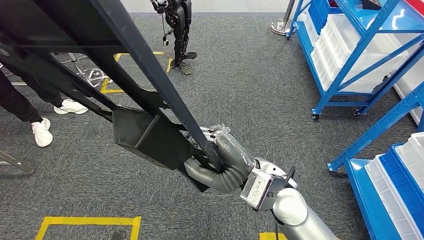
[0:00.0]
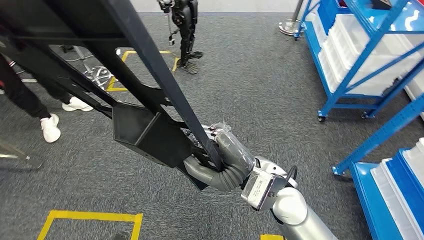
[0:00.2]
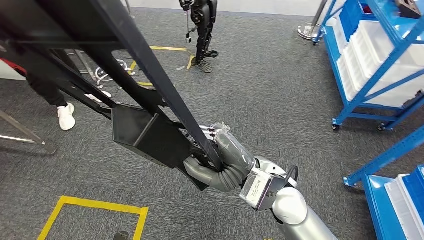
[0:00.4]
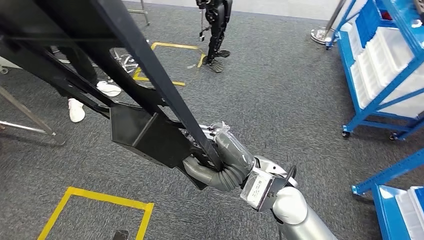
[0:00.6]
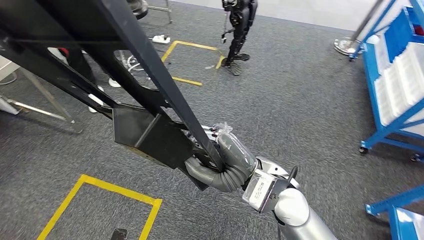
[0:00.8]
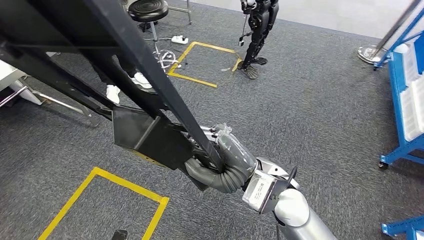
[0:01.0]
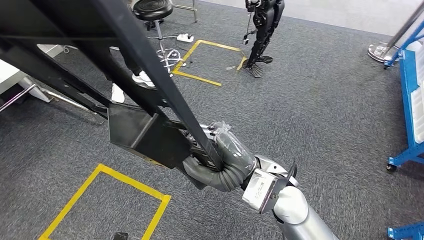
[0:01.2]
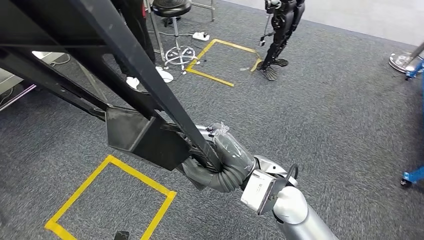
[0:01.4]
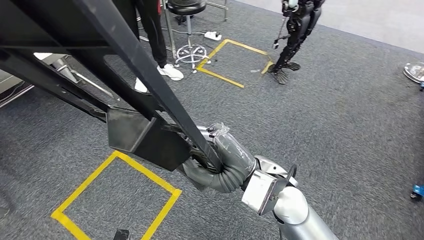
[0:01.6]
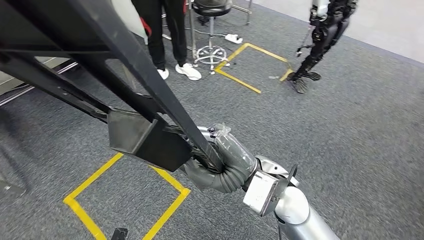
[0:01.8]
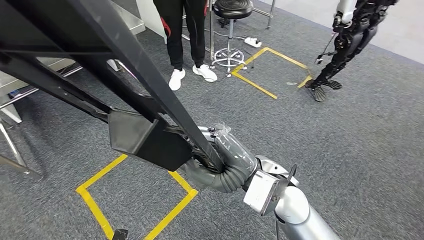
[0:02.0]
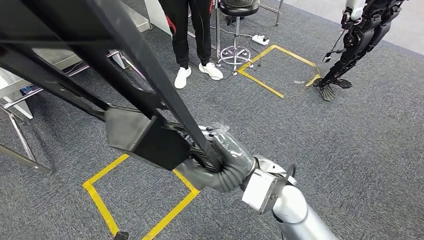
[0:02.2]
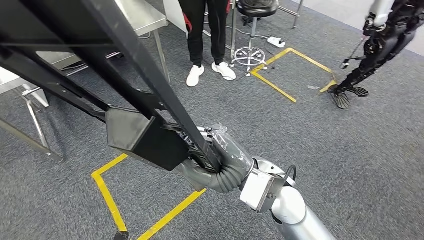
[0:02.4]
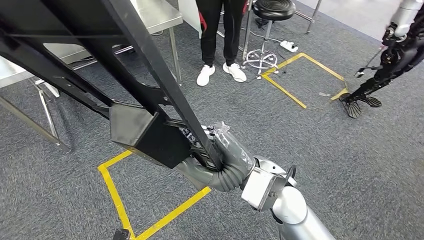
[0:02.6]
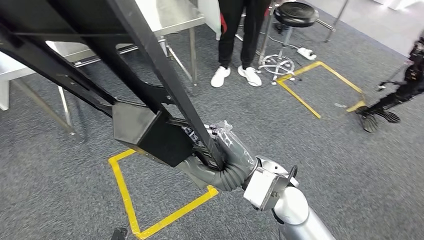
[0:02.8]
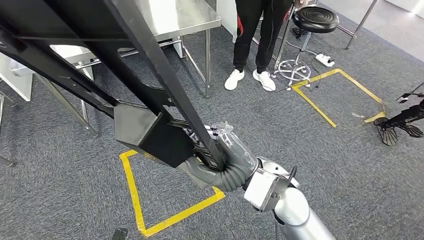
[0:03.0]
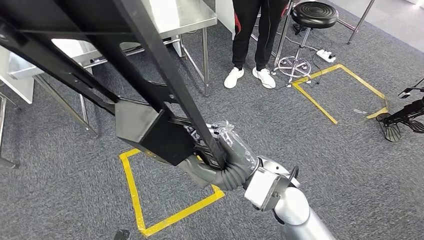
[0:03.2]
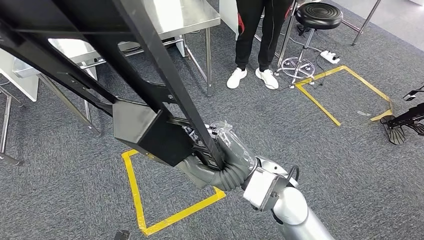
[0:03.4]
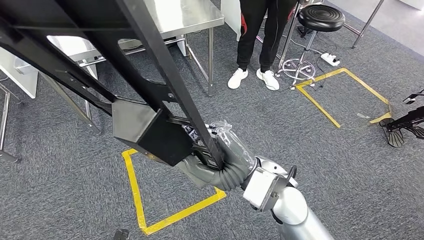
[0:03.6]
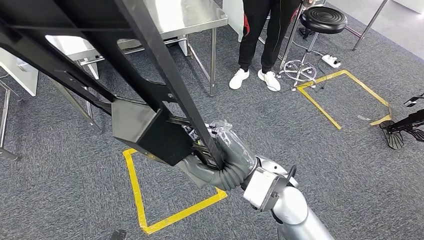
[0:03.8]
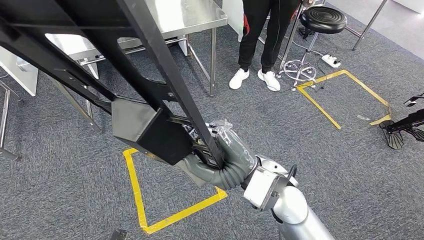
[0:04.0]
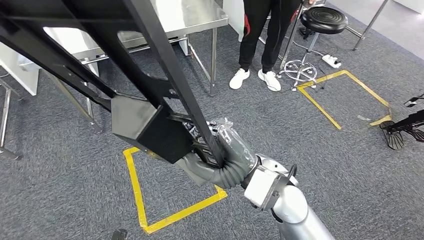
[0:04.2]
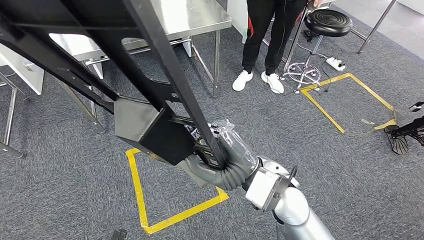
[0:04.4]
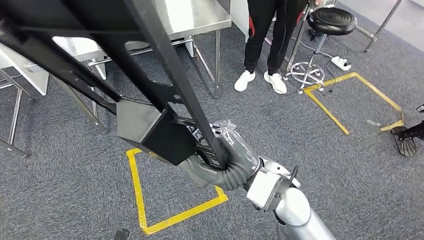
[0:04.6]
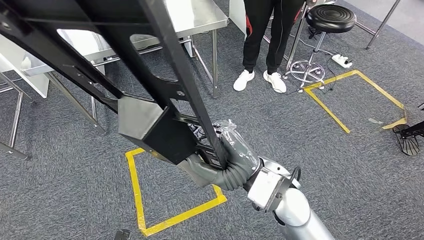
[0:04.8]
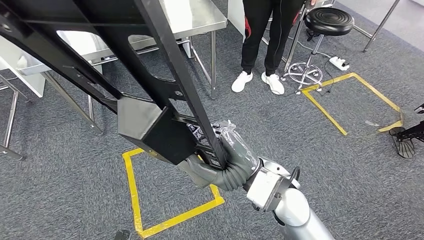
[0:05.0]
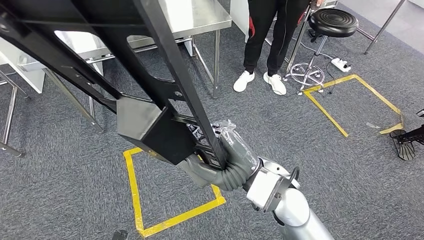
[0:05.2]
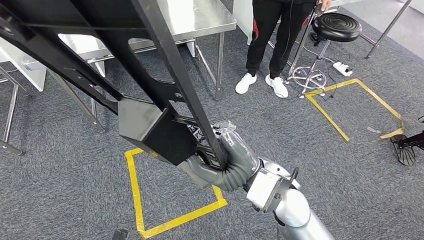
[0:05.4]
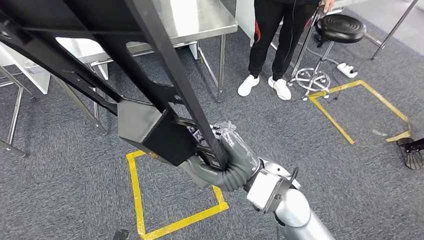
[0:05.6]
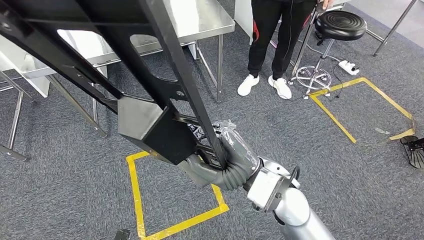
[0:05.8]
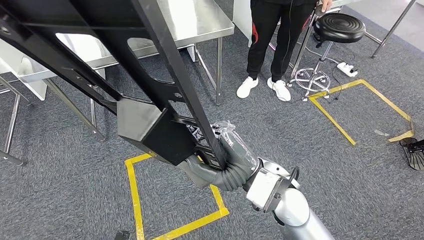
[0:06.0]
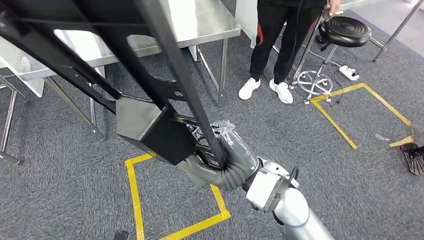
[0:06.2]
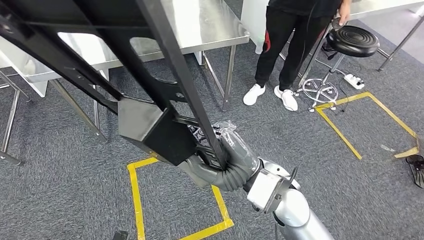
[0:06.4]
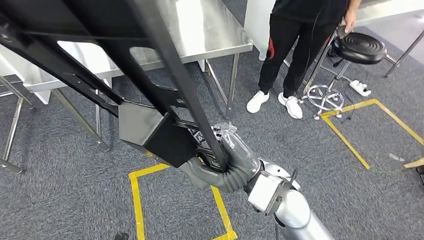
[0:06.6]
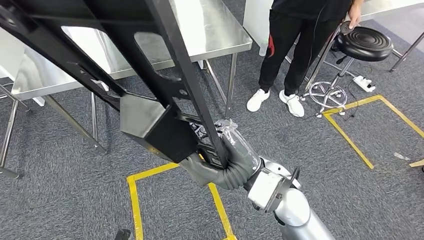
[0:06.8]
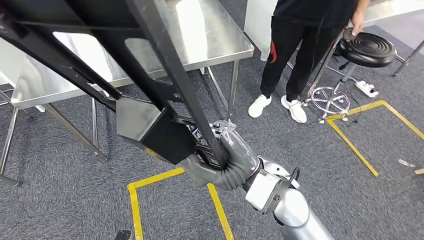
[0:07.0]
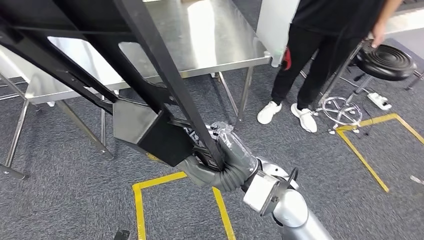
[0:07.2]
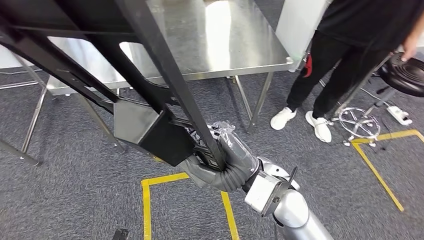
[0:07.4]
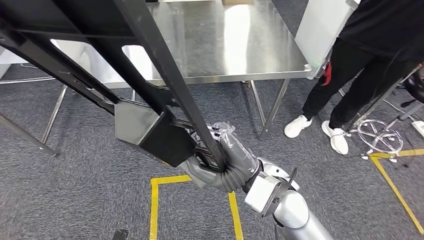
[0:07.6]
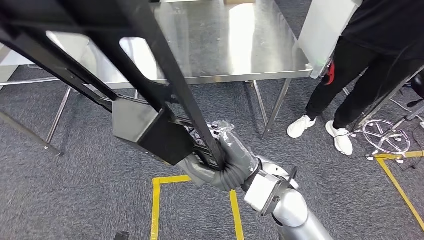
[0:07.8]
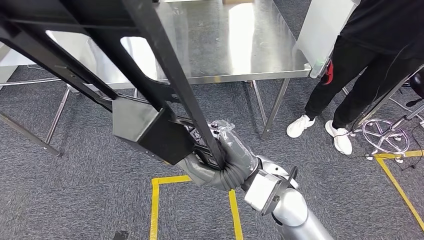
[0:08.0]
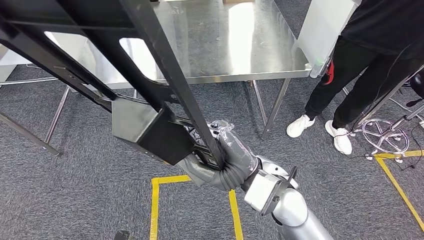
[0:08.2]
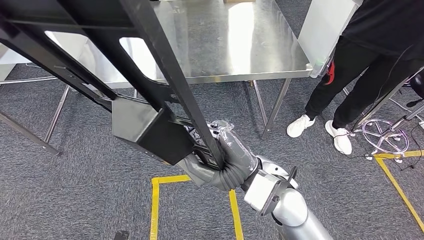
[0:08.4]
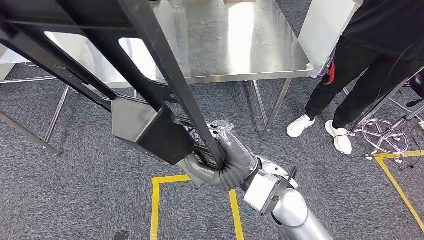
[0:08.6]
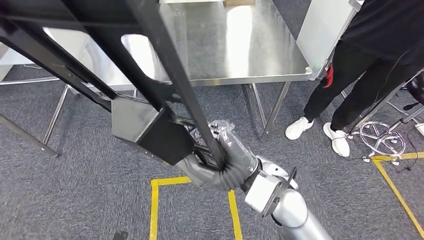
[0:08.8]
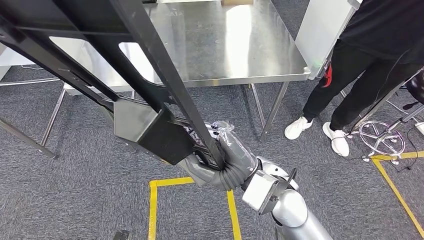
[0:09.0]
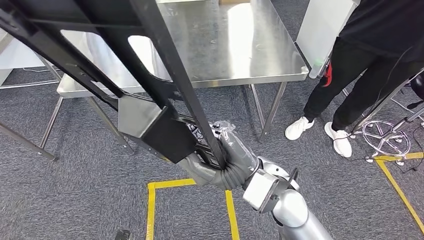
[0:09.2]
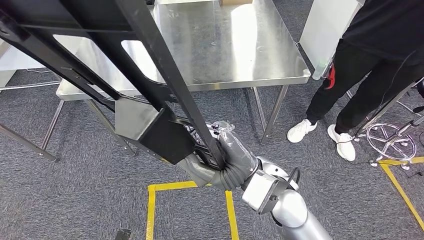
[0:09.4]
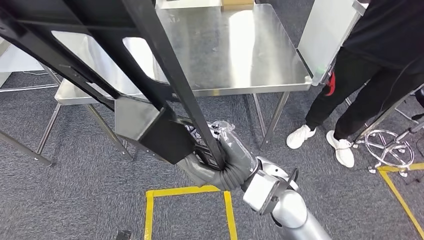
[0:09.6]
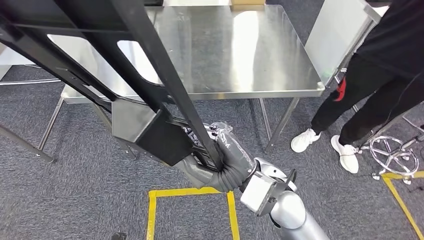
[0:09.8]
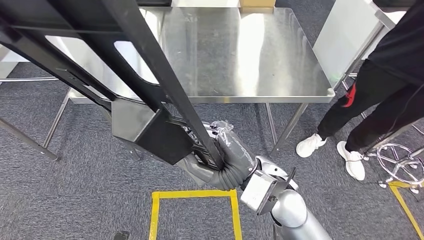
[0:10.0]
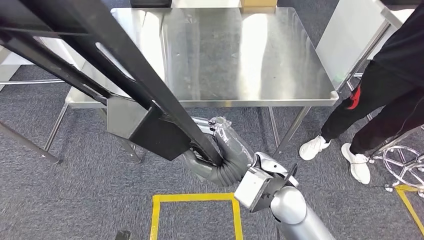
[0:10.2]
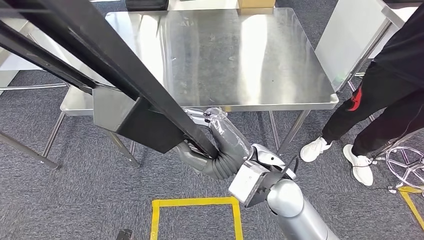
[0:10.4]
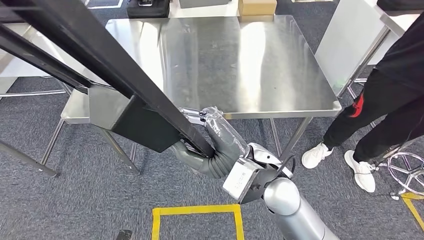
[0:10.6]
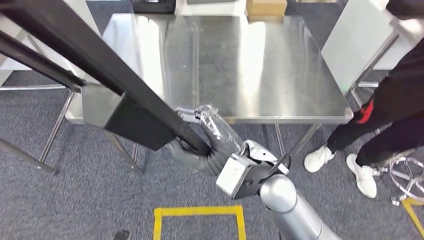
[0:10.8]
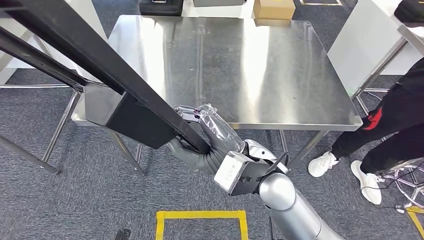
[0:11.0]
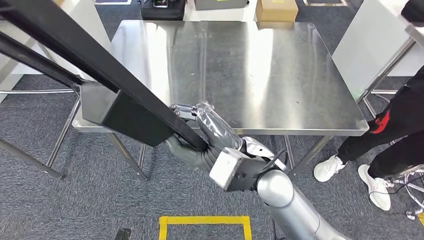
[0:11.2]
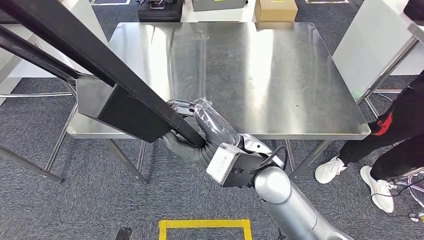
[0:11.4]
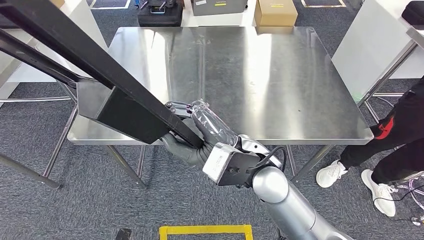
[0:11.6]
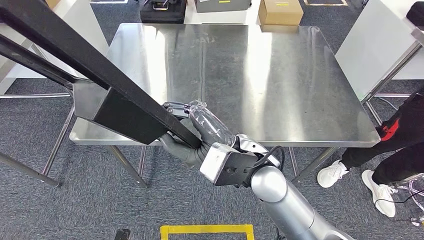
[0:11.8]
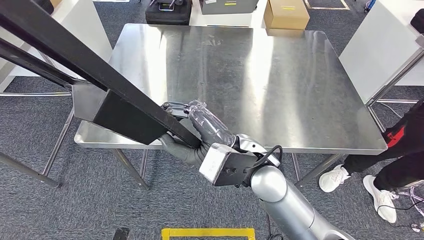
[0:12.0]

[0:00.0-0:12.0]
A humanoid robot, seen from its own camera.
Step, 0:00.0 to 0:11.6: Move the large material to the workbench.
0:07.6 to 0:09.0: Neither hand changes place.

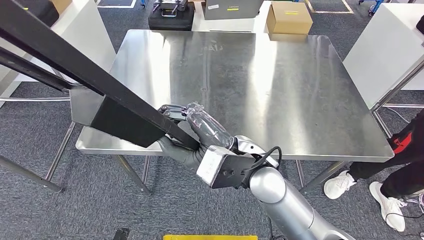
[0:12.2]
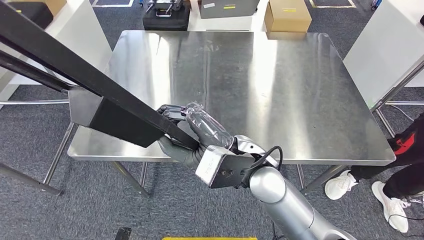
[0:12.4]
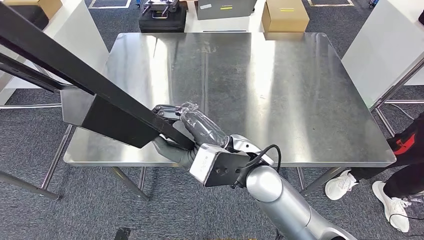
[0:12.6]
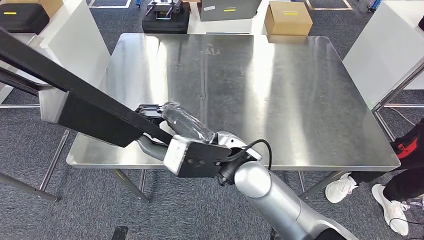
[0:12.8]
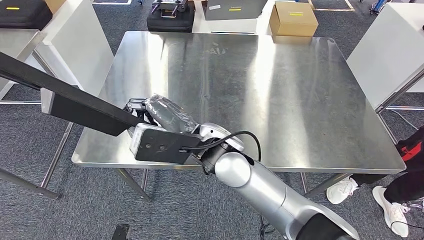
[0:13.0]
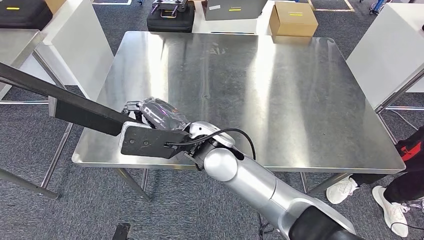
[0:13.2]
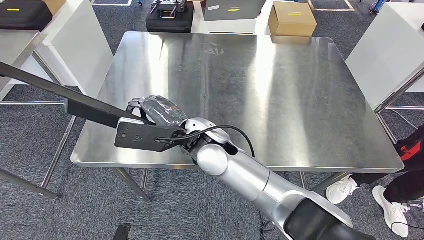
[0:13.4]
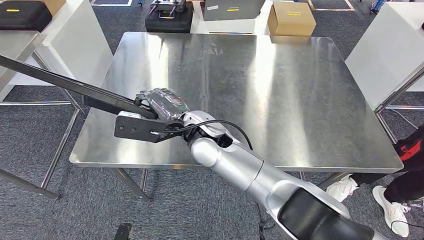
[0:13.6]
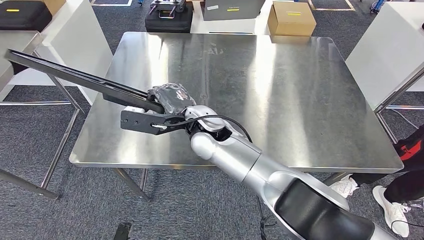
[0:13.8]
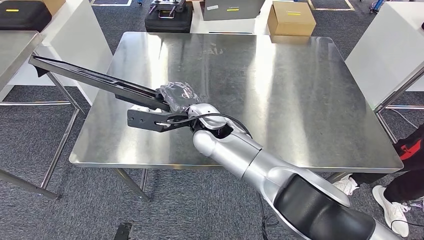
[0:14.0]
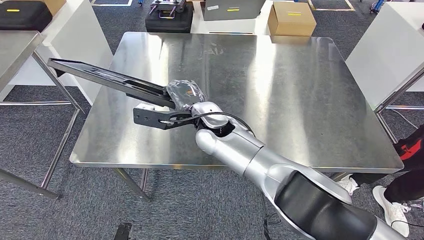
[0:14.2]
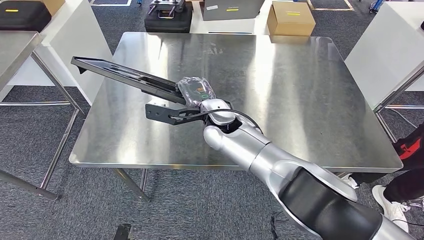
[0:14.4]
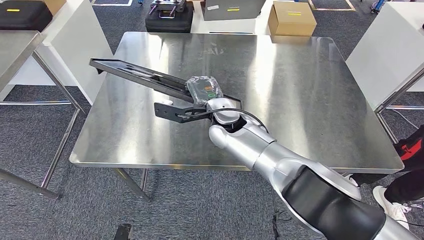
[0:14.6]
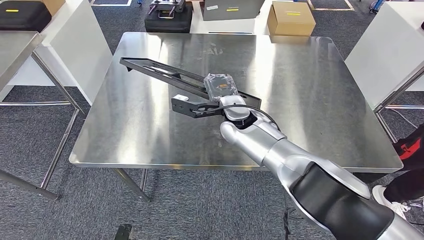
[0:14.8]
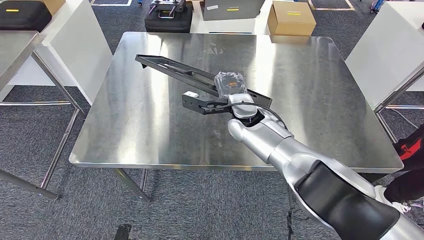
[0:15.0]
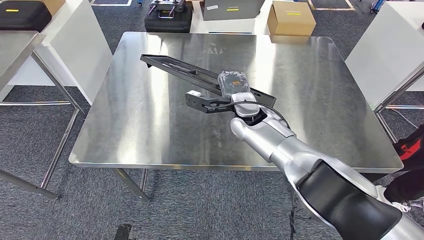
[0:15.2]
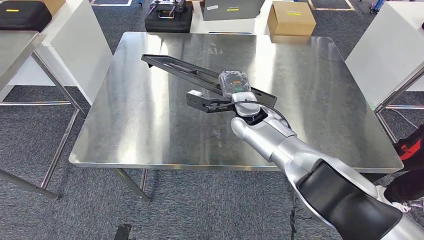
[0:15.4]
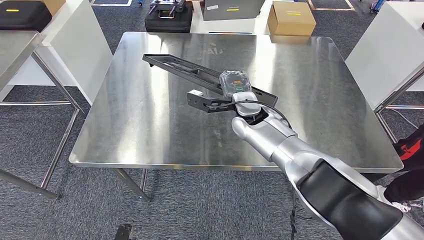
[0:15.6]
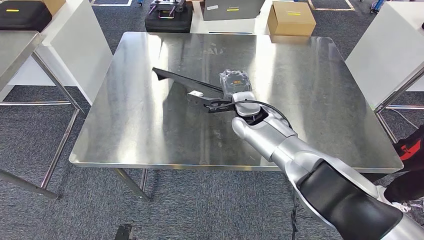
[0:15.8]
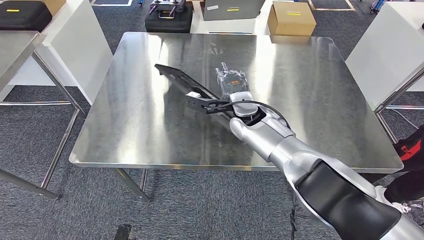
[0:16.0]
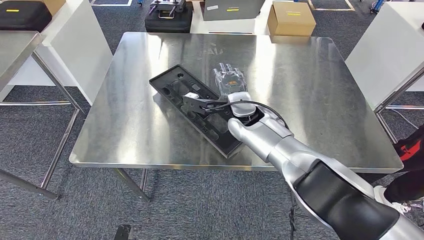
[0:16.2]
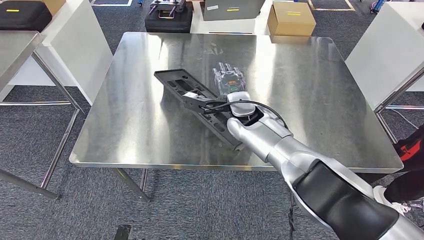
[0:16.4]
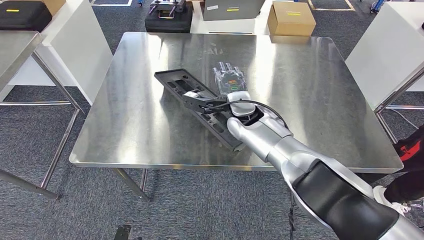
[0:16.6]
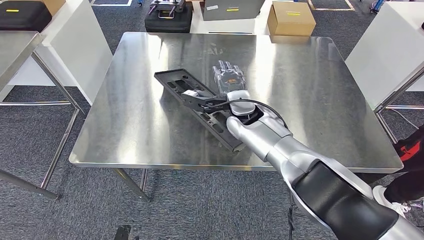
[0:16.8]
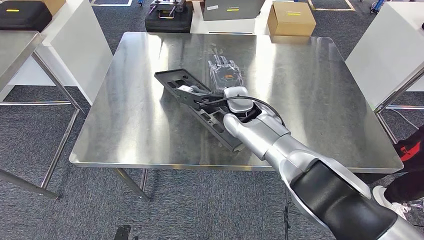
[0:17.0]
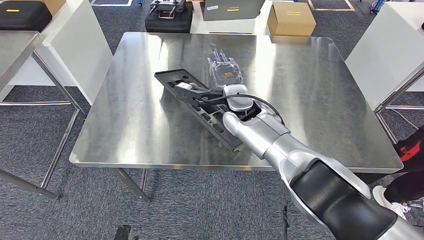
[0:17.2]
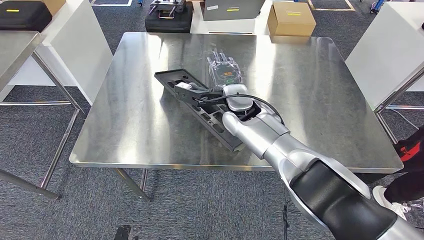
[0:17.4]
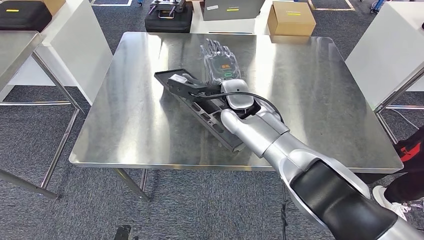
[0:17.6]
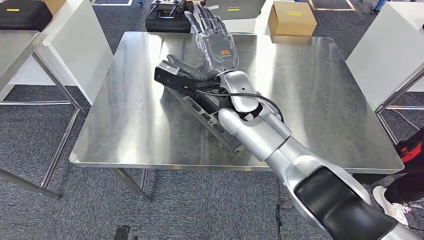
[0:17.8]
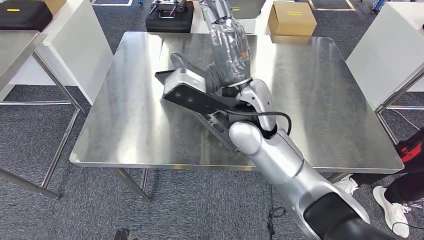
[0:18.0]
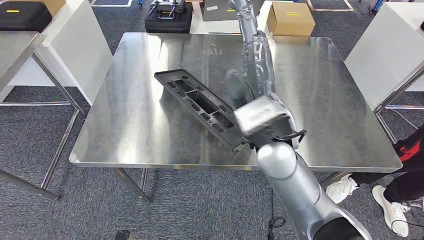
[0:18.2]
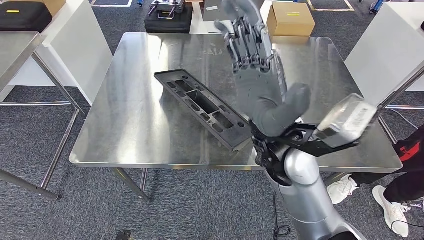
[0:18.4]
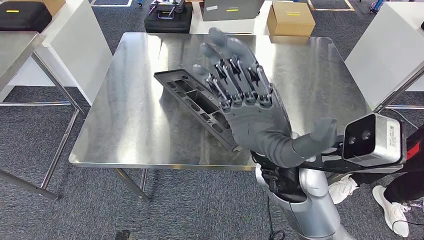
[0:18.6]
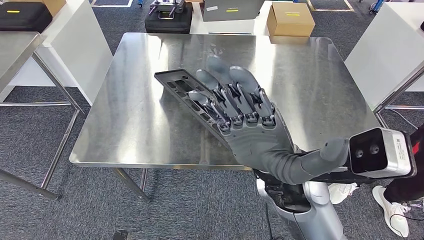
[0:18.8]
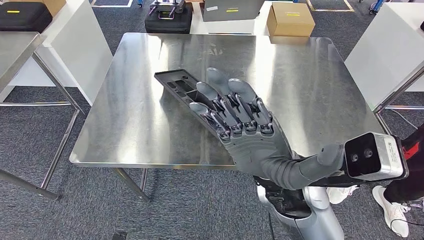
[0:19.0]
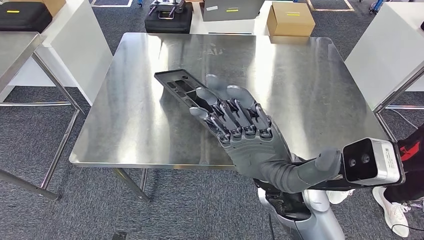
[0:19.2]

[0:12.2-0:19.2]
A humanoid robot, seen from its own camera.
0:15.0 to 0:16.4: The hands move only a little.
0:16.4 to 0:17.8: The right hand moves upward and to the left, roughly 10 cm.
0:17.8 to 0:19.2: The right hand travels backward by roughly 15 cm.
